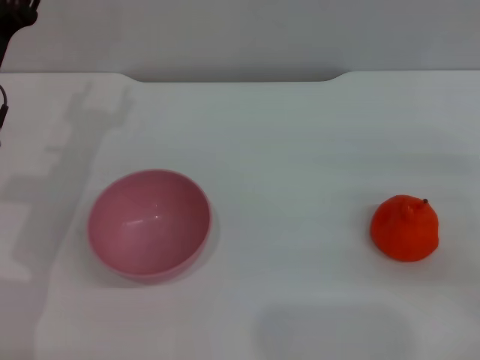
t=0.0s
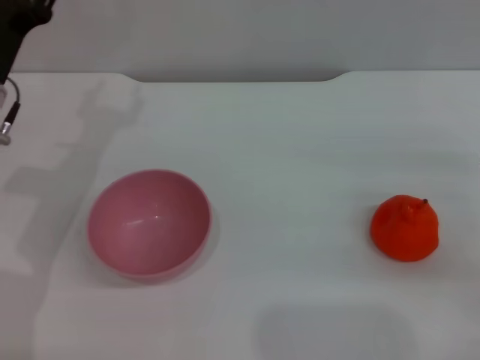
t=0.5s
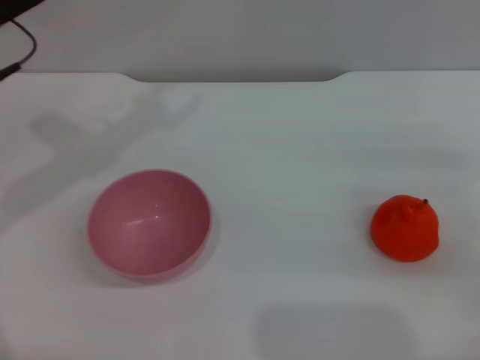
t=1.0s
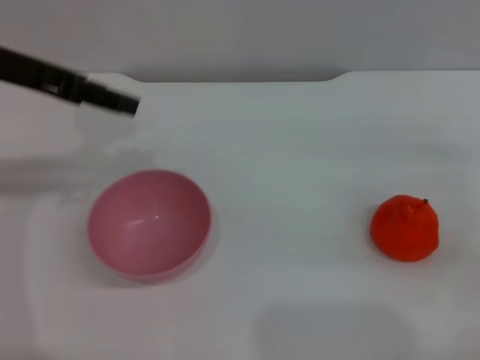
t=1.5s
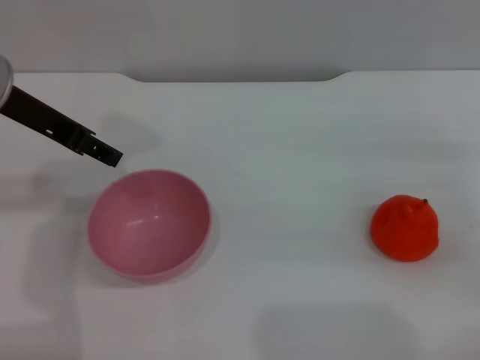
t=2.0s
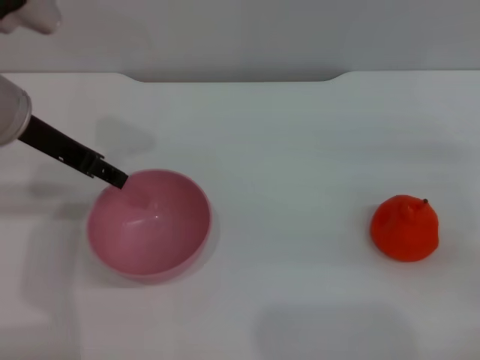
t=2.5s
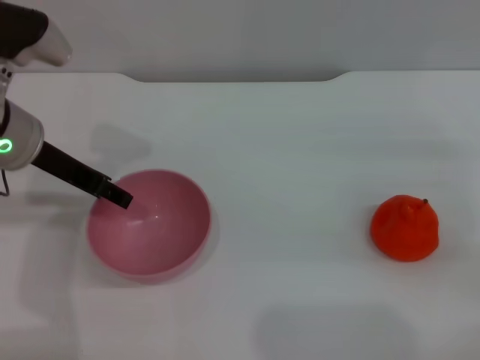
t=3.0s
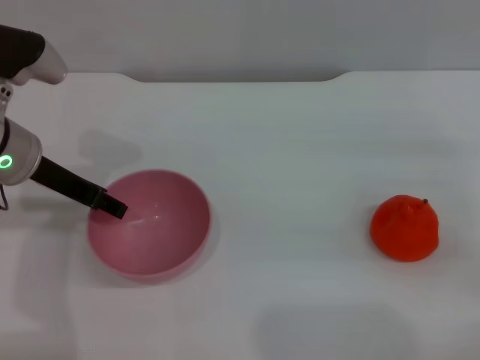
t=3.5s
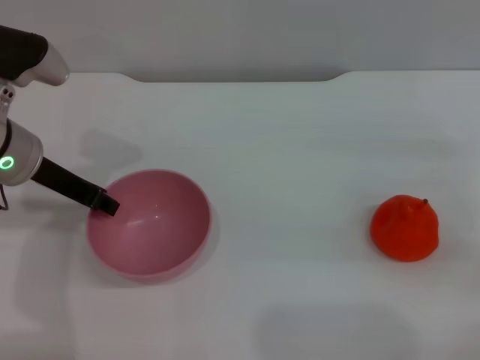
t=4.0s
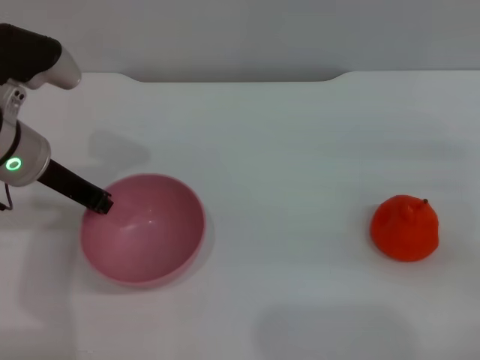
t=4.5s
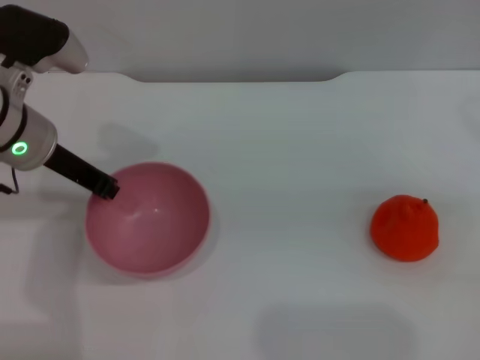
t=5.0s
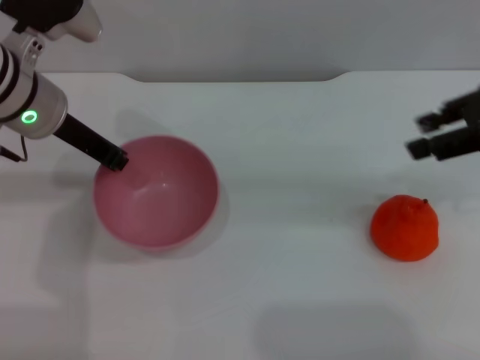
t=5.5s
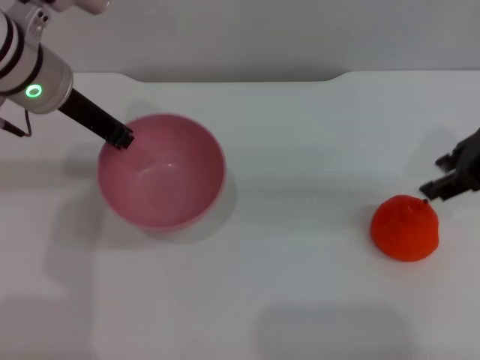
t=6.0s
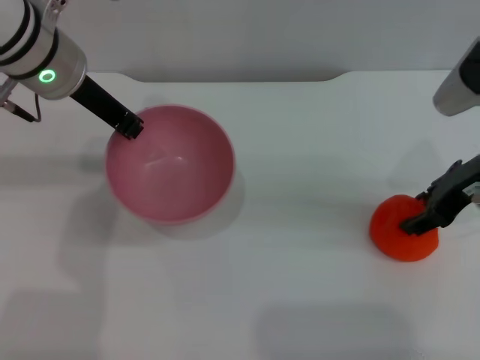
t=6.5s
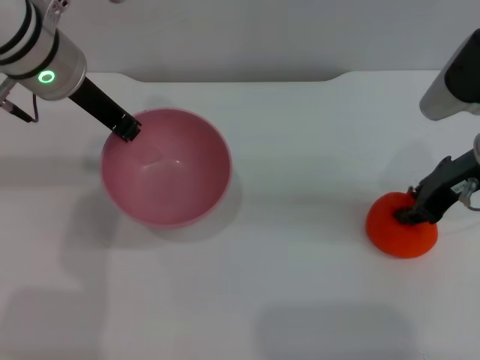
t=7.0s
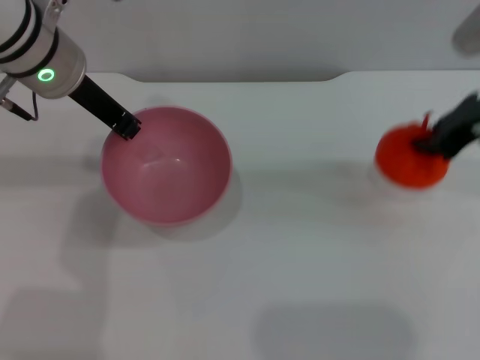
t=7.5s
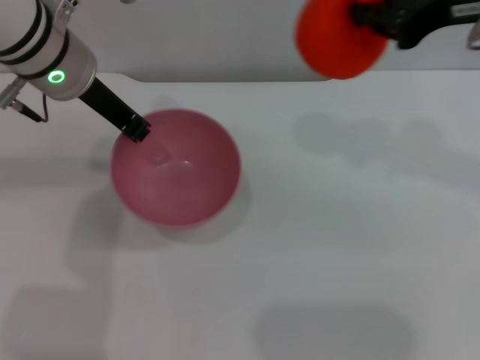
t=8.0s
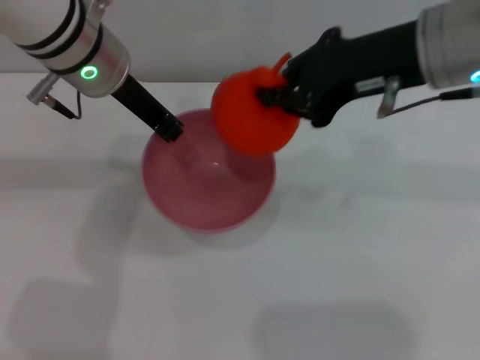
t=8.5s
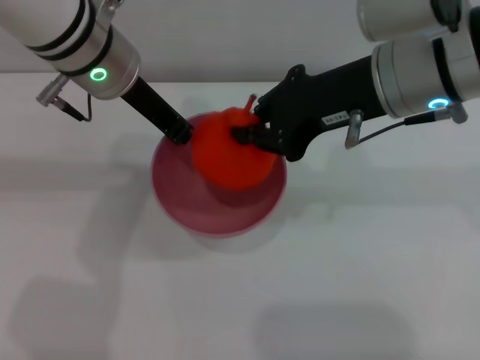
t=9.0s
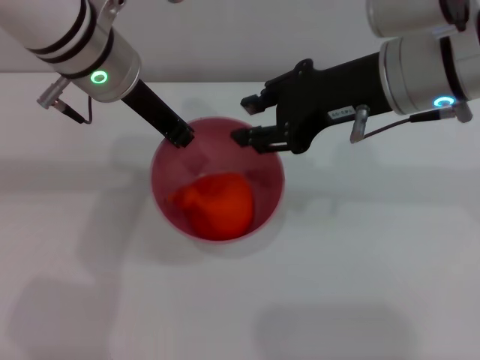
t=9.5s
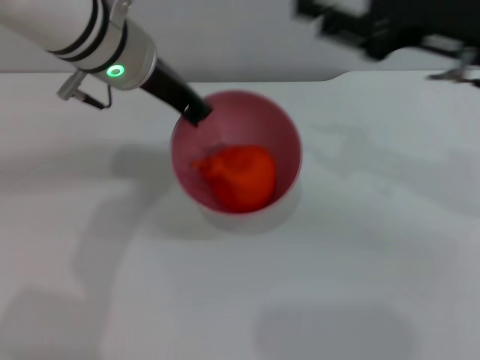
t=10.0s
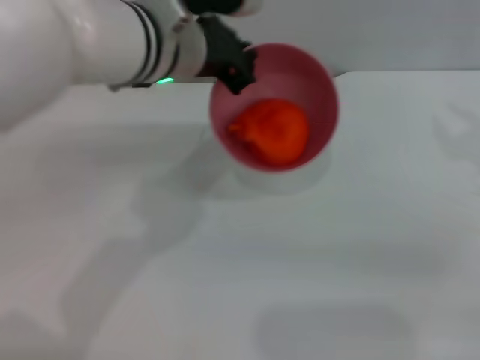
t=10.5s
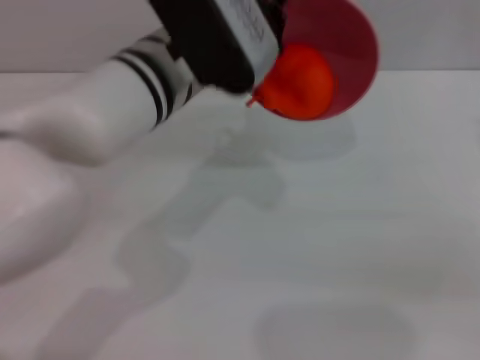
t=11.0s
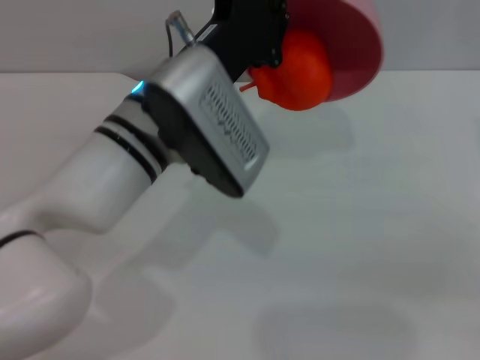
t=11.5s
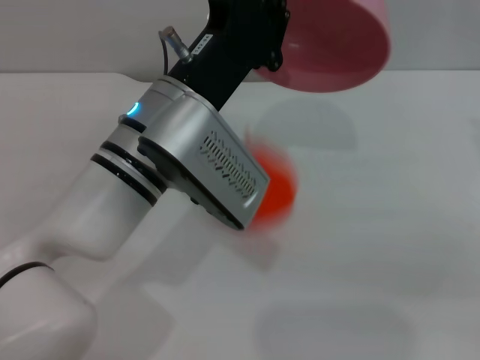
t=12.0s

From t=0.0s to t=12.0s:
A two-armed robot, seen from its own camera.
Task of the whole recording: put the orange into the pink bowl and pour it out repeatedly.
Step, from t=0.0s to t=6.0s: Pick up the bowl with the left gripper.
Step, from t=6.5s to t=7.5s: Pick up the orange with the right gripper.
Step, from t=8.0s to t=9.5s: Place the orange into the bowl.
From t=0.0s to t=2.0s: The left gripper is displaced upward by about 10 cm.
From t=2.0s to t=4.0s: The left gripper goes about 10 cm downward.
From t=4.0s to t=6.0s: The right gripper is displaced upward and to the left by roughly 15 cm. The left gripper is displaced upward by some 5 cm, and closes its fingers.
From t=6.0s to t=8.0s: The right gripper shifts approximately 10 cm upward and to the left, and closes.
From t=8.0s to t=10.0s: The right gripper shifts approximately 5 cm downward, moves roughly 10 cm to the left and comes back, and opens up.
From t=10.0s to t=12.0s: The left gripper is displaced backward and downward by approximately 10 cm. The right gripper moves to the right, downward and backward, about 15 cm.

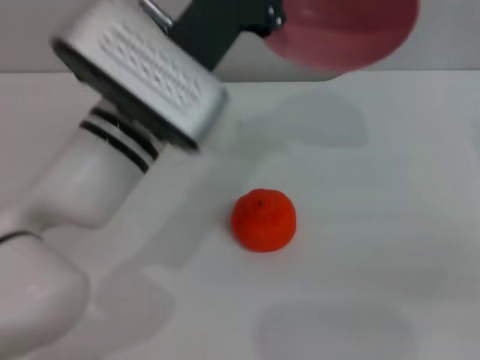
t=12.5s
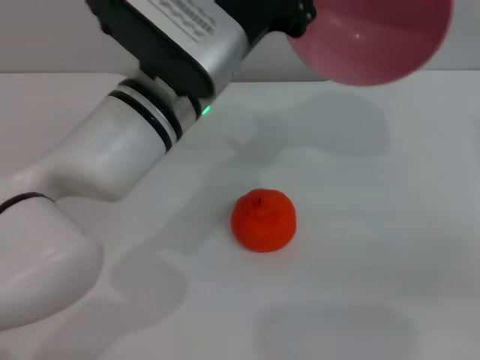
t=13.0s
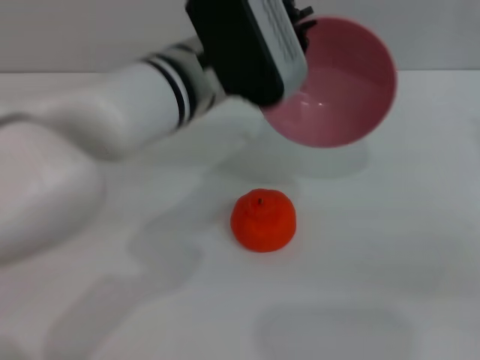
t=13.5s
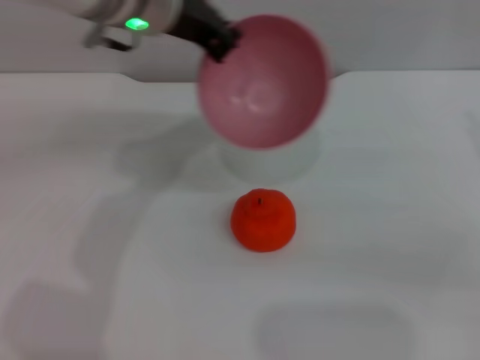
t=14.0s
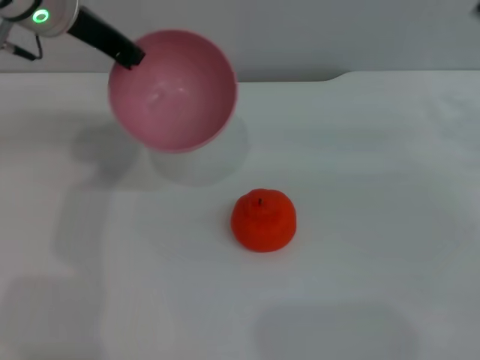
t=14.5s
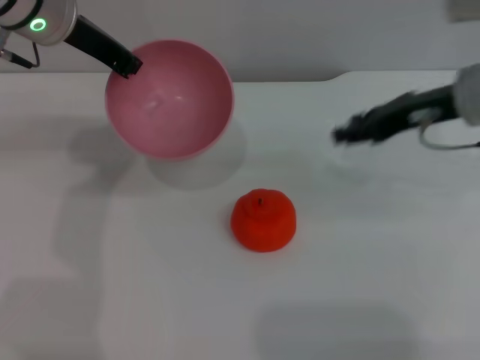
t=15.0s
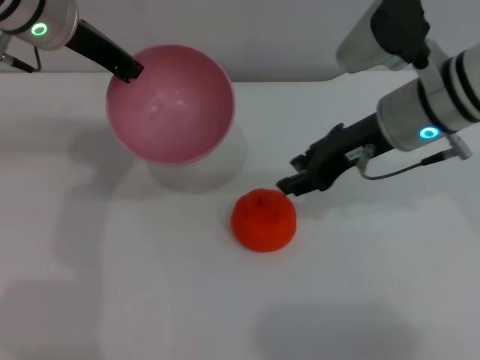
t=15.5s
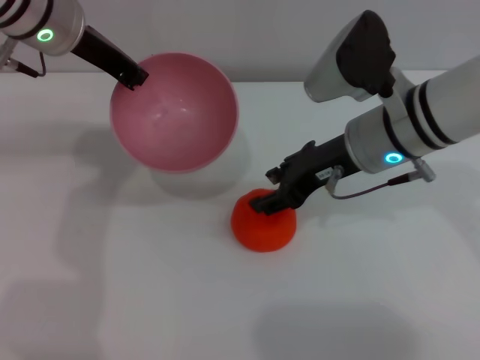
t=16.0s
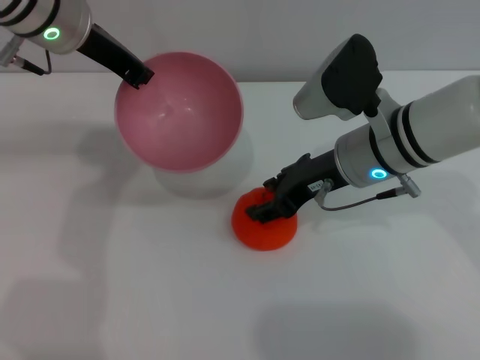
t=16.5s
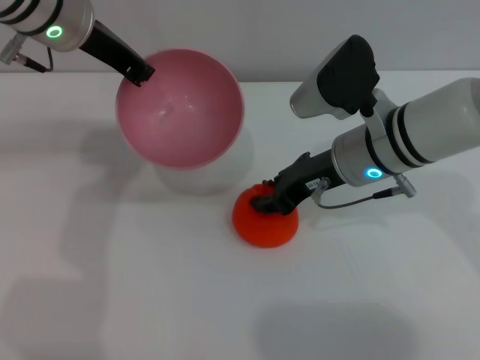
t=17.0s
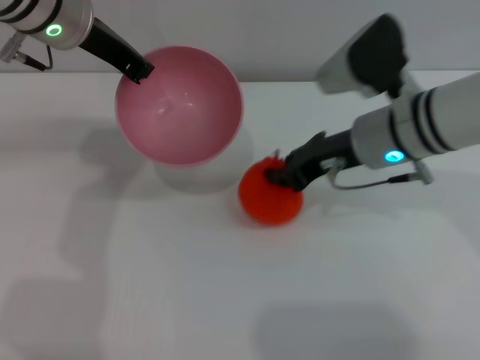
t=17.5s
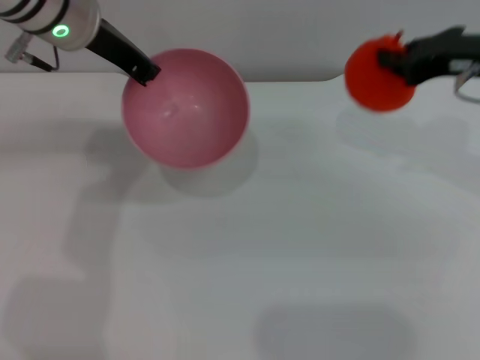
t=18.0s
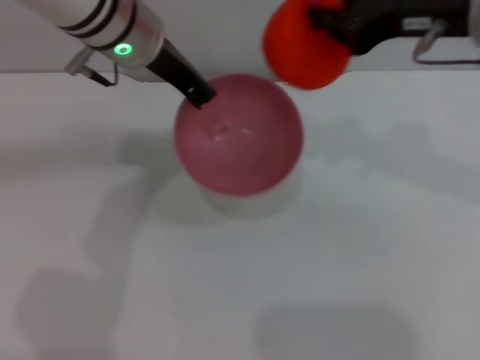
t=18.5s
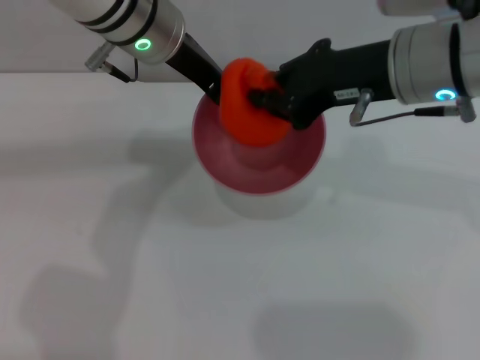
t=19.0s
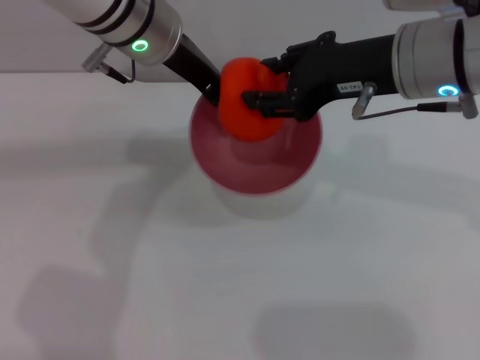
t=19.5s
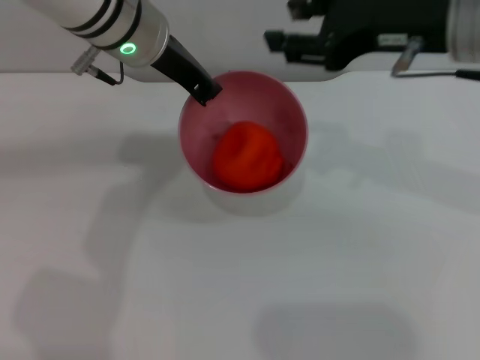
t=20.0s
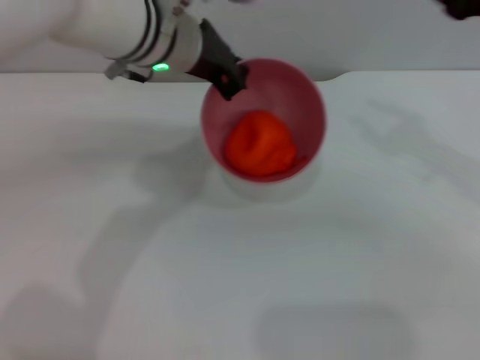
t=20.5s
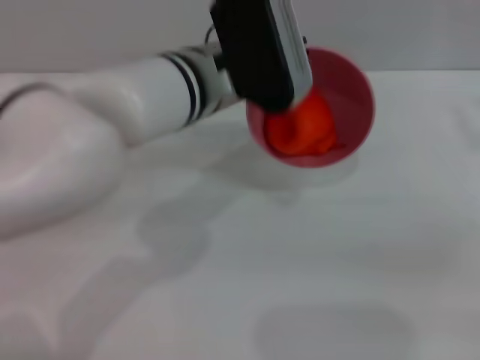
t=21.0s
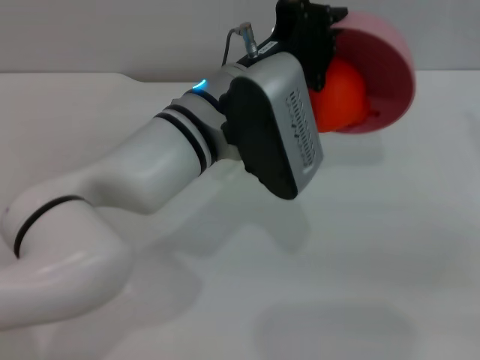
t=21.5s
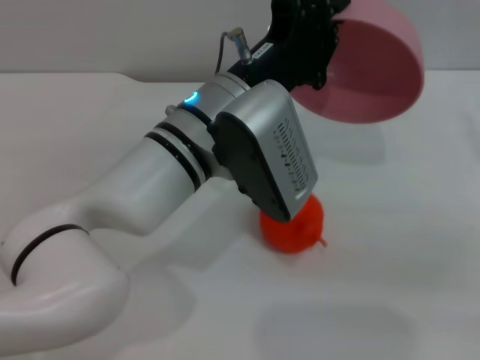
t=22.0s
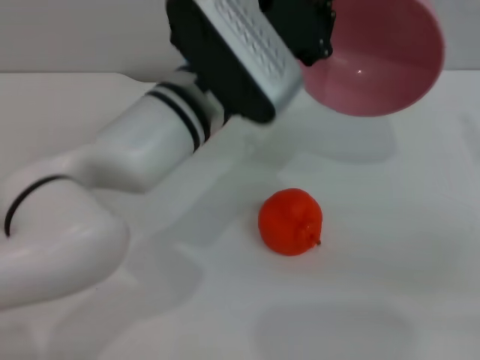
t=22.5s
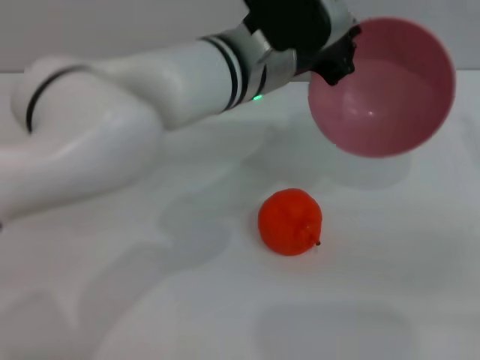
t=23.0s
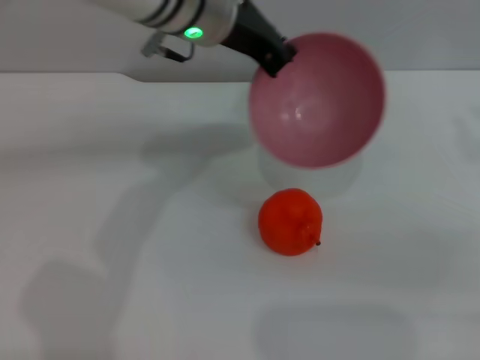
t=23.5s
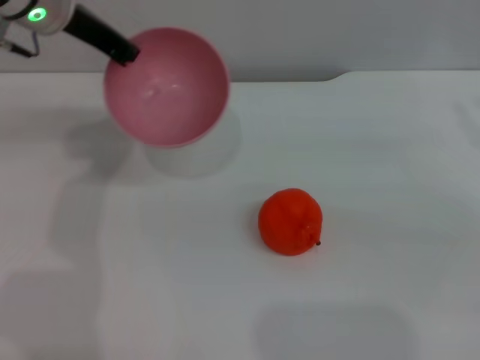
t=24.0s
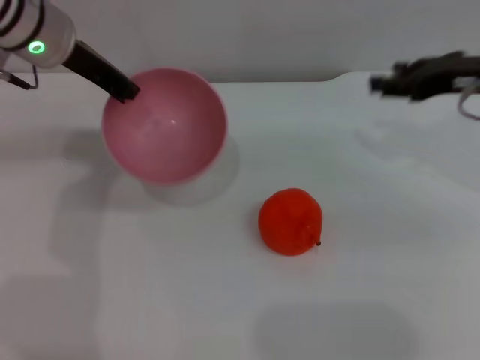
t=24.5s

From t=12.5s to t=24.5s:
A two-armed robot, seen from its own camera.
Task of the whole recording: put the orange into the pink bowl and pour it out repeatedly.
Step, from t=12.5s to t=17.5s: Pick up the orange with the right gripper.
Step, from t=18.0s to t=19.5s: Place the orange into the bowl.
Step, from t=20.0s to t=22.0s: Pour the orange out of the bowl.
From t=12.5s to t=14.5s: The left gripper travels forward, to the left and upward by about 15 cm, while the right gripper travels forward by approximately 5 cm.
From t=14.5s to t=16.5s: The right gripper goes roughly 20 cm to the left.
From t=16.5s to t=18.5s: The left gripper heads to the right, covering roughly 5 cm; the right gripper is displaced upward by roughly 15 cm, and closes its fingers.
From t=18.5s to t=20.5s: The right gripper travels to the right and downward by about 10 cm, and opens.
From t=20.5s to t=22.5s: The right gripper travels to the right by about 5 cm; the left gripper goes approximately 5 cm backward.
From t=22.5s to t=24.5s: The right gripper shifts about 10 cm forward and to the left; the left gripper heads to the left and forward, covering approximately 15 cm.

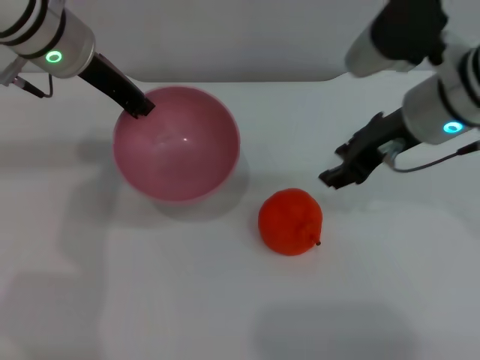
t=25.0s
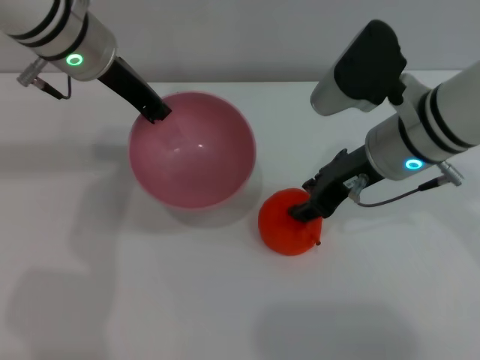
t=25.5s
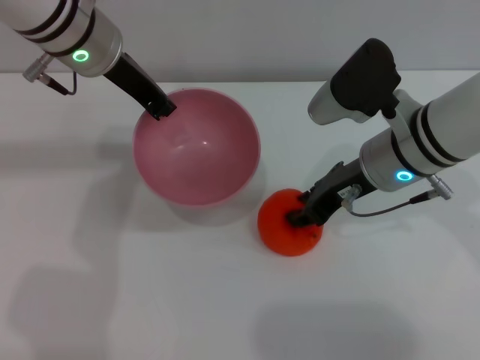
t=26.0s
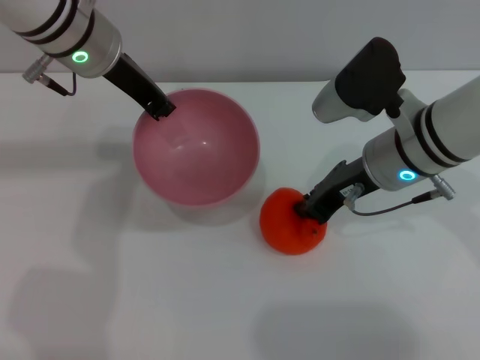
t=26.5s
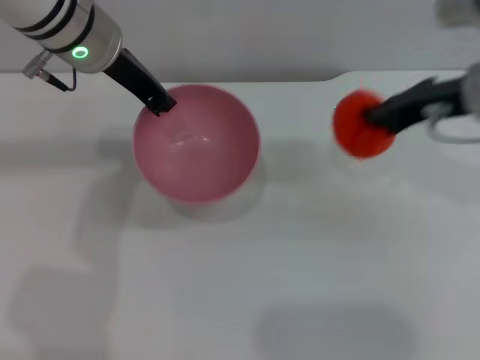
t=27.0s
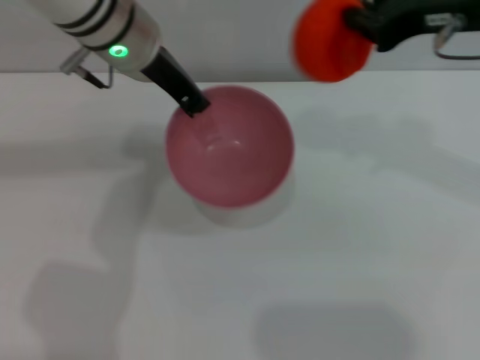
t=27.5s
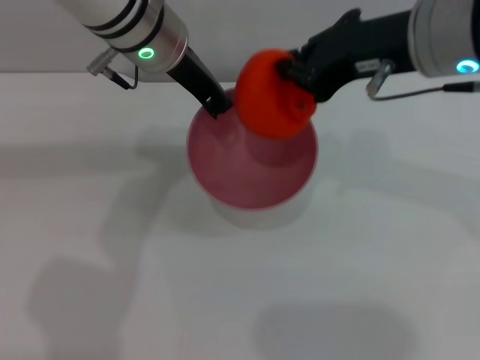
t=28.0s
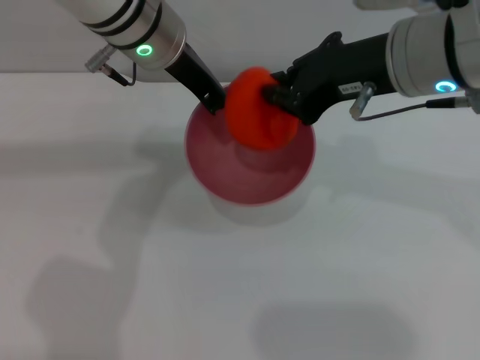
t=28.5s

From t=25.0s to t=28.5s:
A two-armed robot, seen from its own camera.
Task of the whole recording: put the orange into the pink bowl and pour it out repeatedly.
Step, from t=25.0s to t=27.0s: Pick up the orange with the right gripper.
From t=25.0s to t=27.0s: The right gripper moves to the right, about 5 cm, and closes up.
From t=27.0s to t=28.5s: The left gripper moves to the right, roughly 5 cm. The right gripper travels to the left and upward by about 10 cm.
